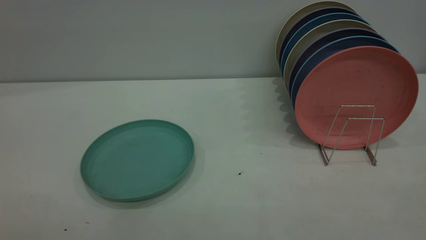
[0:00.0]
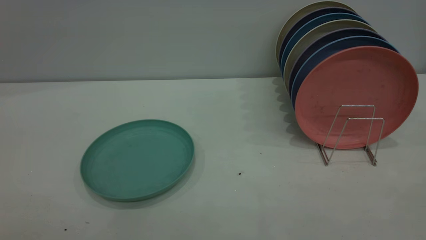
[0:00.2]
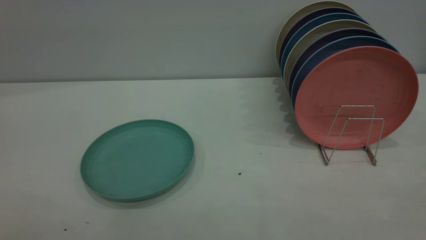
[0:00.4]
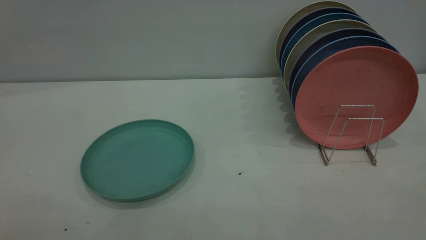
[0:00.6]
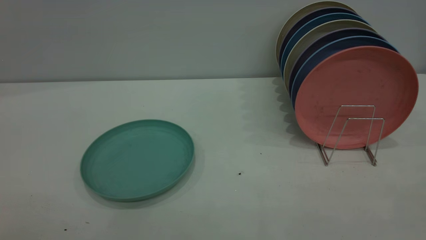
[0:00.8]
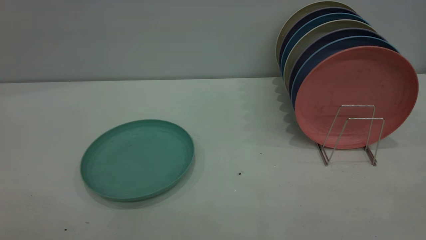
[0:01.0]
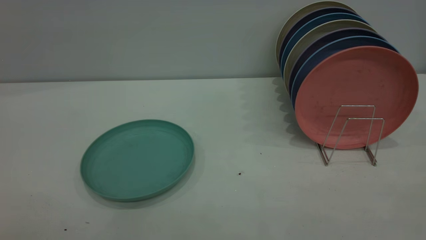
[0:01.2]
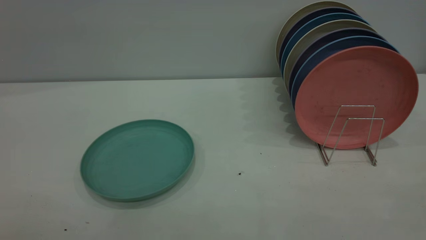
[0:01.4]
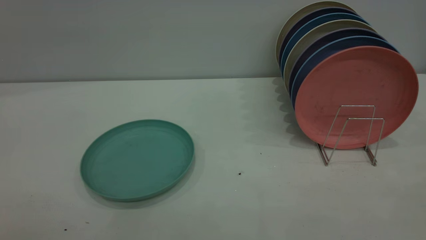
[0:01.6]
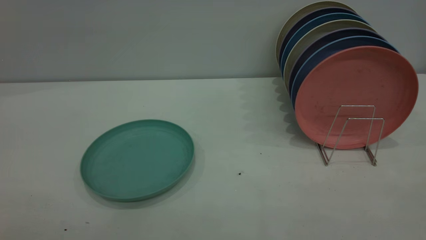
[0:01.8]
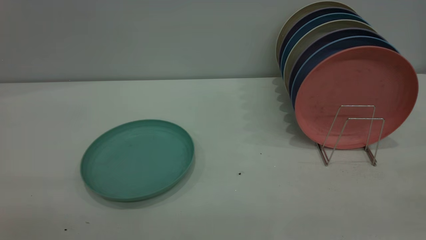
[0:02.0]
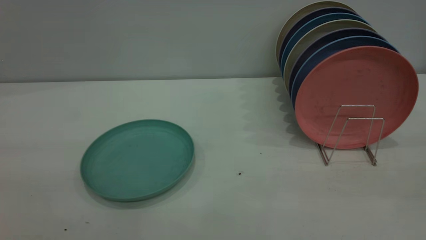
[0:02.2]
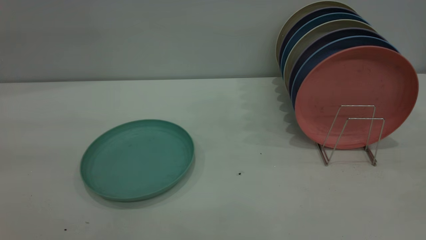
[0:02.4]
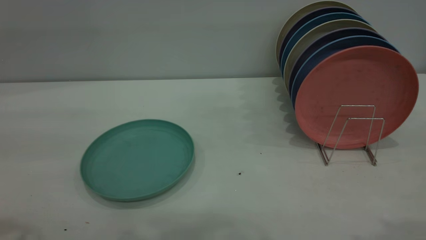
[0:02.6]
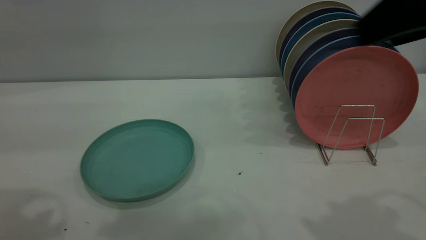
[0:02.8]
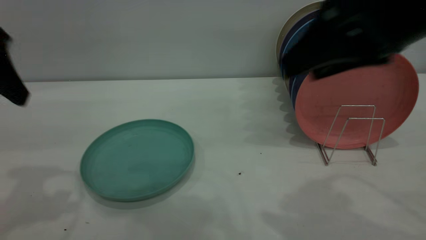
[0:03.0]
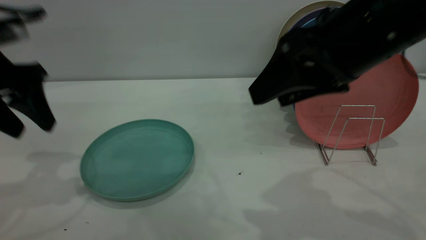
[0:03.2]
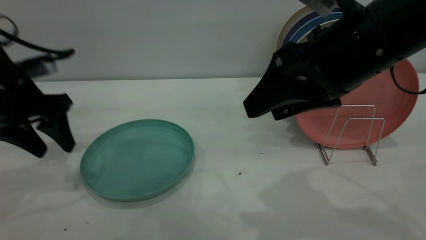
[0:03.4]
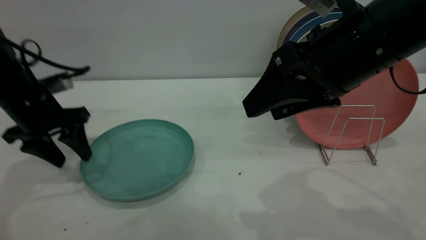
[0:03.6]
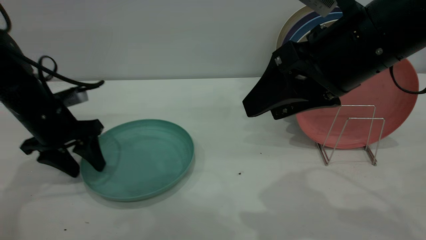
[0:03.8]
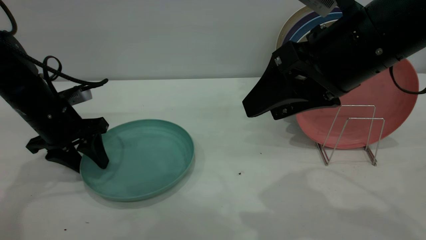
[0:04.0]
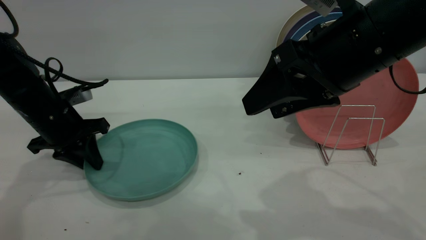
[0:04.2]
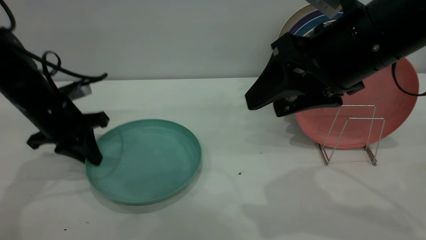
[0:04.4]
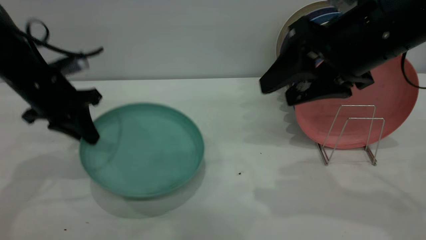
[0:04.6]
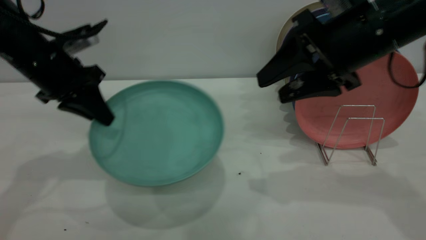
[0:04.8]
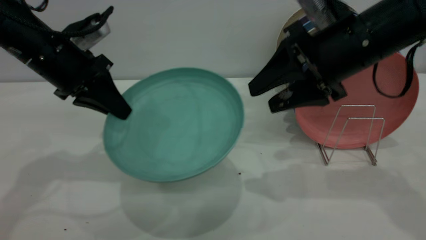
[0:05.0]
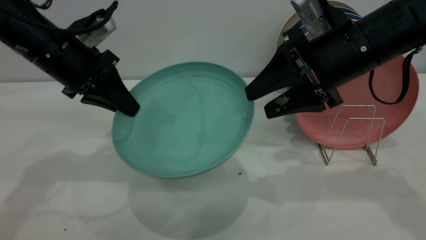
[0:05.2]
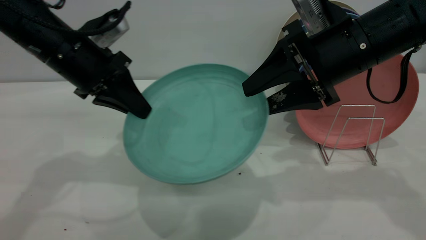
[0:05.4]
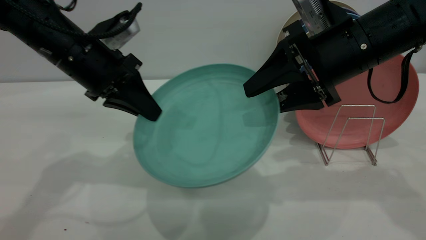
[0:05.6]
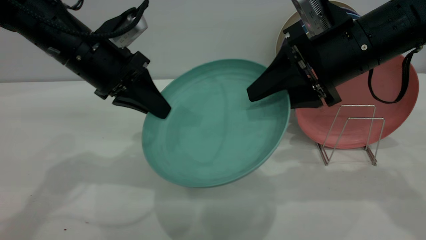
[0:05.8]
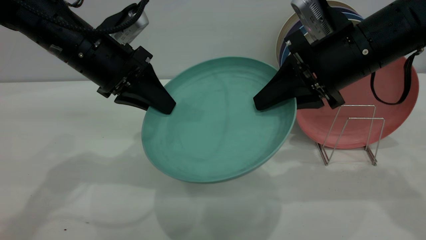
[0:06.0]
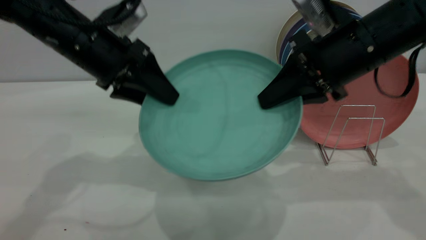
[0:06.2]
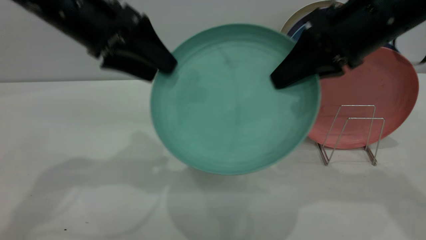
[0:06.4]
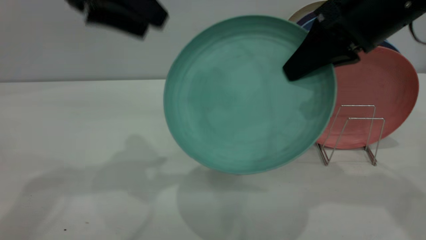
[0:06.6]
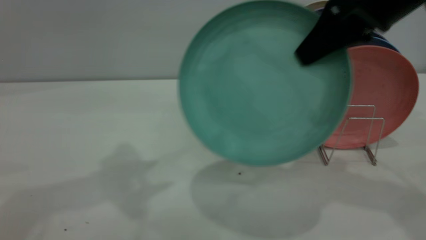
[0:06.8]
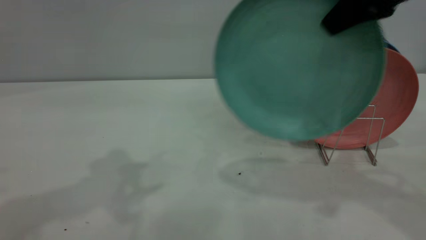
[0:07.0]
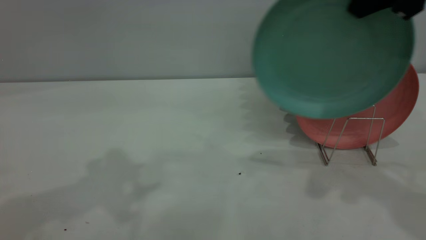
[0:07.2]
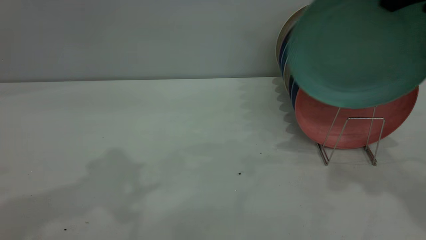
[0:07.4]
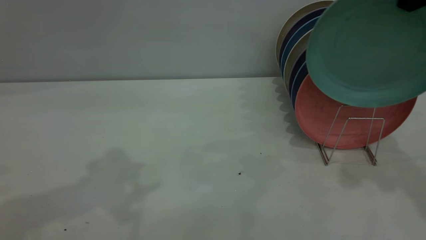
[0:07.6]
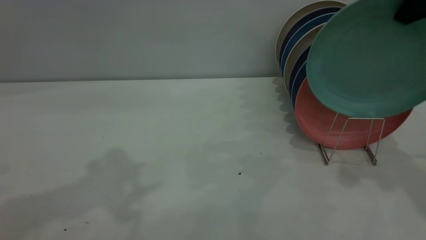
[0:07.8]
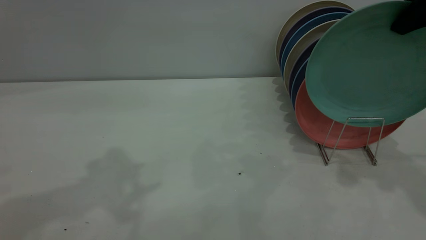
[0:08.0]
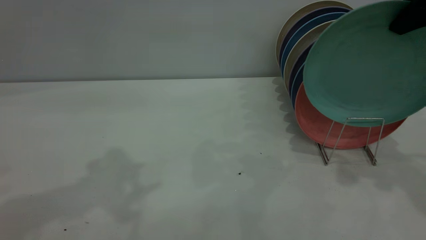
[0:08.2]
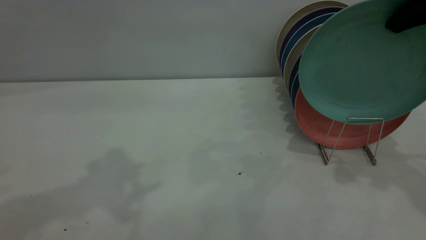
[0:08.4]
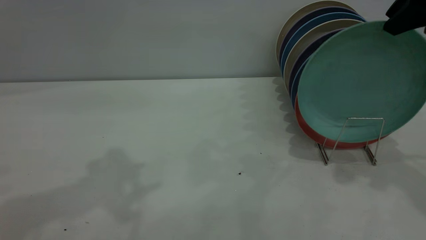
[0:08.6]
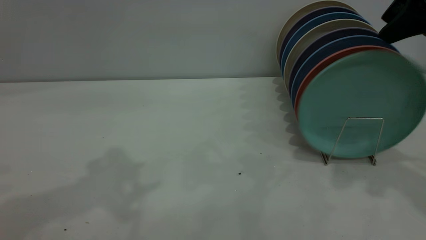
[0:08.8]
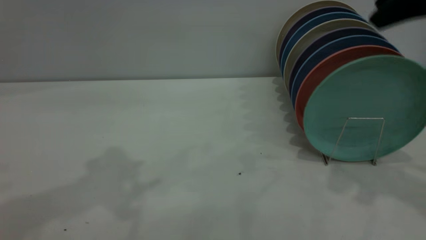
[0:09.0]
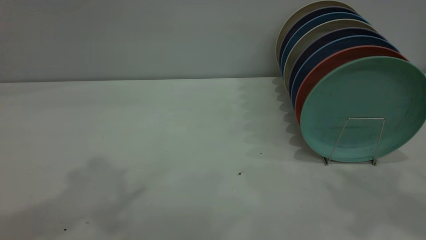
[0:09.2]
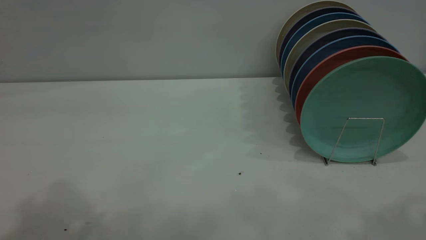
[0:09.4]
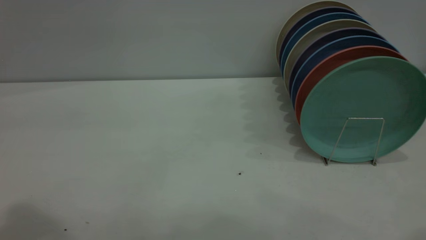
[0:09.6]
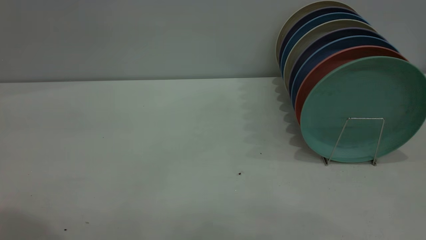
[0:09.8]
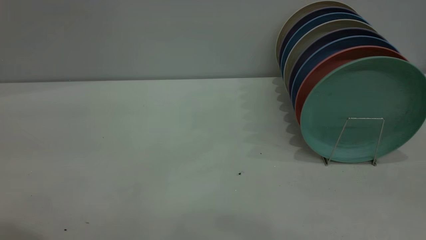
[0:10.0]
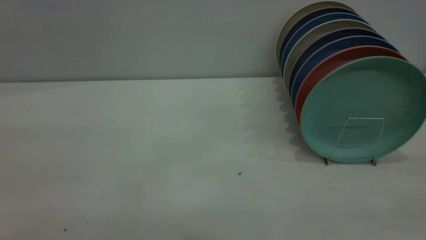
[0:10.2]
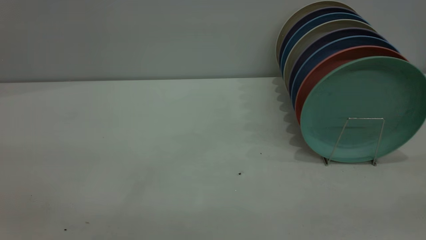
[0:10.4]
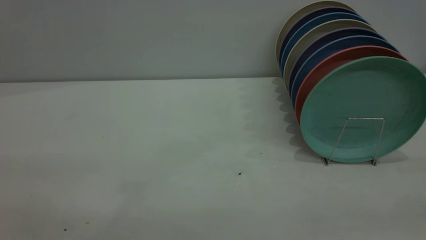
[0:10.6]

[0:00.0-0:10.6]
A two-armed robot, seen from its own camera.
Task of the whole recording: the left gripper grasp the green plate, the left gripper pass the green plate to the right gripper, and the right gripper place the green plate on the plate rack.
Step, 0:00.0 to 0:04.6: Pick up the plate with the left gripper.
Step, 0:04.8 to 0:06.4: Pass the plate from the left gripper to the right gripper.
Step, 0:06.6 to 0:09.0: Place the plate on the shelf.
0:00.0 to 0:01.6: Both grippers stay put.
0:01.6 to 0:03.0: The left gripper shifts approximately 30 cm forward. The right gripper moves forward and to the left, approximately 30 cm, and opens its fingers.
0:03.0 to 0:04.6: The left gripper heads downward and forward, covering approximately 15 cm, and closes. The right gripper shifts roughly 5 cm forward.
0:04.6 to 0:06.0: The right gripper closes up; the left gripper shifts about 10 cm to the right.
0:06.0 to 0:07.6: The left gripper travels upward by roughly 20 cm, and opens its fingers. The right gripper moves upward and to the right, roughly 15 cm.
0:07.6 to 0:09.0: The right gripper opens up.
0:09.0 to 0:10.6: The right gripper shifts some 25 cm backward.

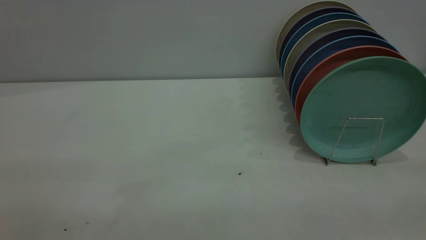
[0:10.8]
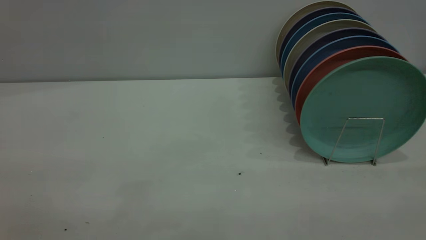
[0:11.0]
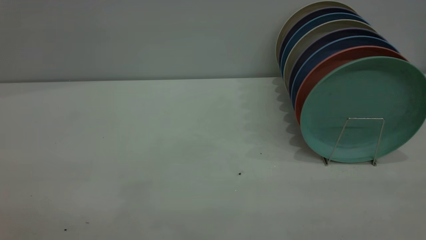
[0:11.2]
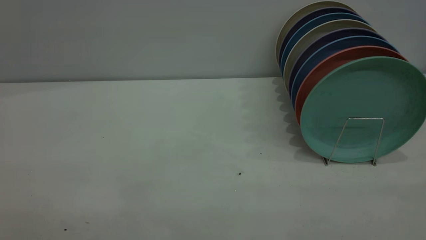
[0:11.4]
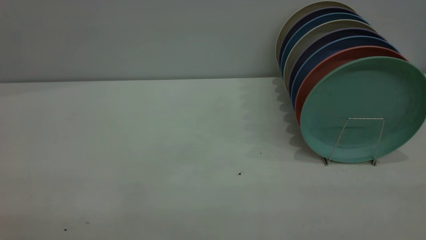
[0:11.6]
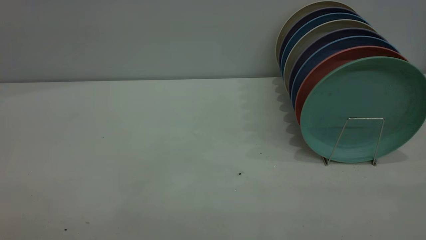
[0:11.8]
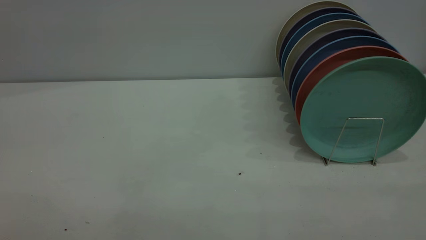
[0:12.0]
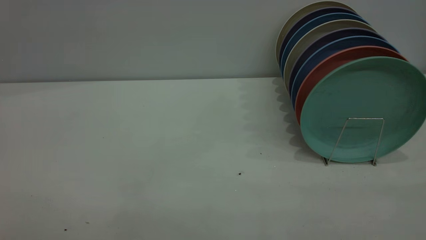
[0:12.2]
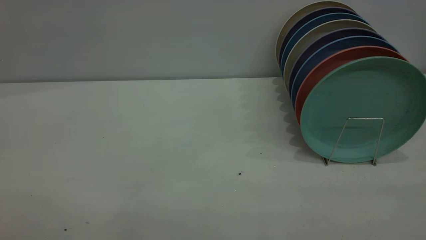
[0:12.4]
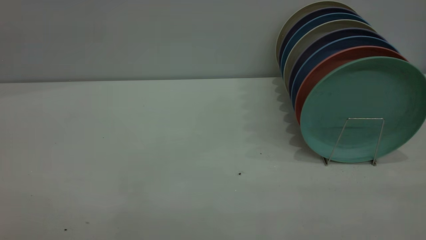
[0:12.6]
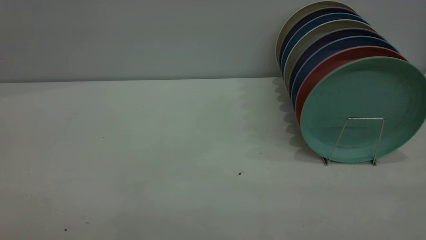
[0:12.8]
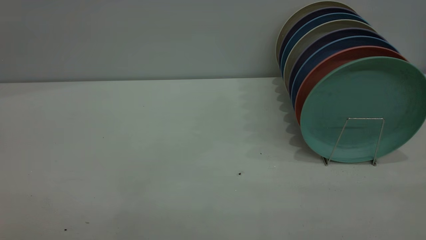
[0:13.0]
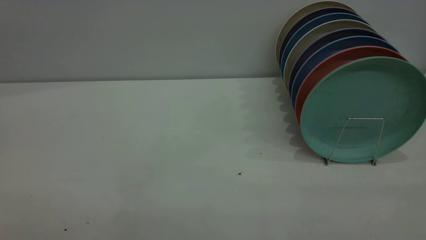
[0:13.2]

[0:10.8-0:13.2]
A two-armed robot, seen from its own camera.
Task of the whole recording: the left gripper grasp the green plate, the left gripper pass the green plate to the right gripper, and the right gripper place the green plate on the plate rack.
0:12.0 to 0:13.2: Both grippers stay about where they are.
